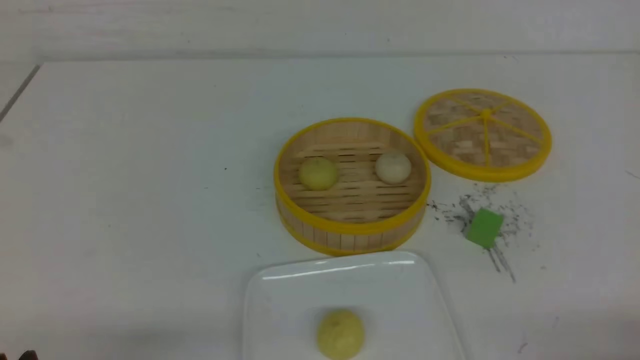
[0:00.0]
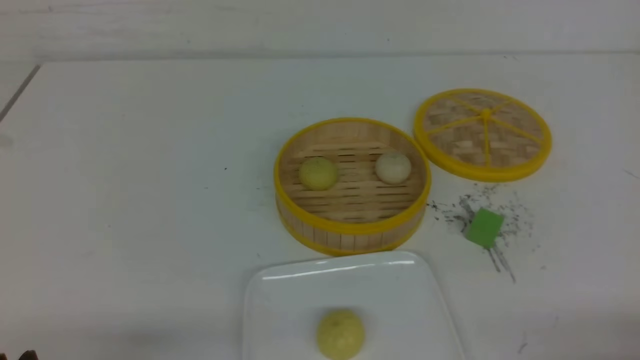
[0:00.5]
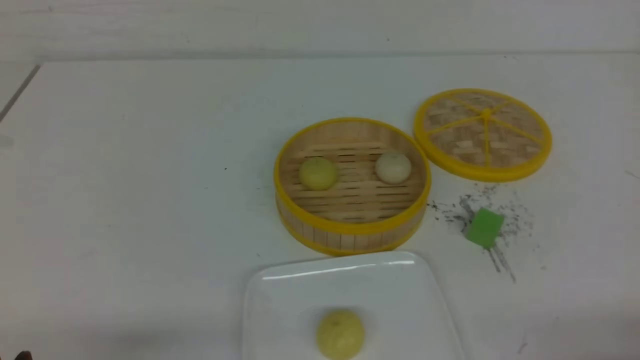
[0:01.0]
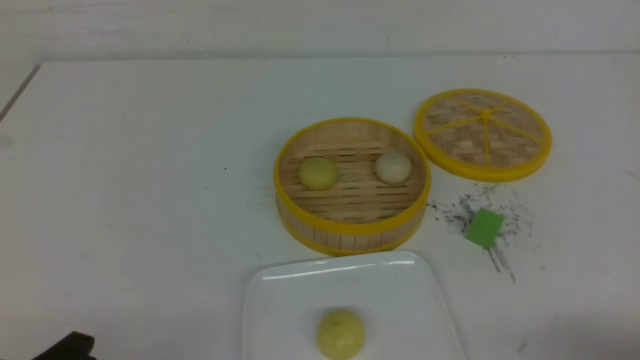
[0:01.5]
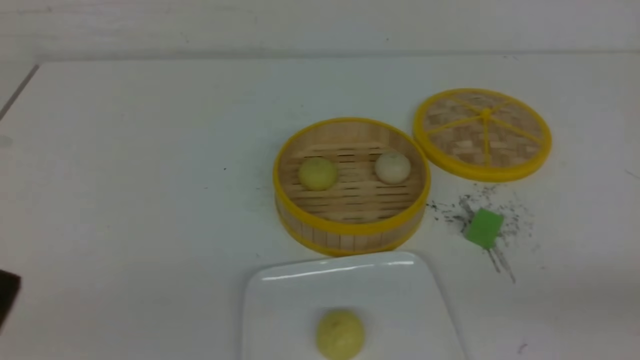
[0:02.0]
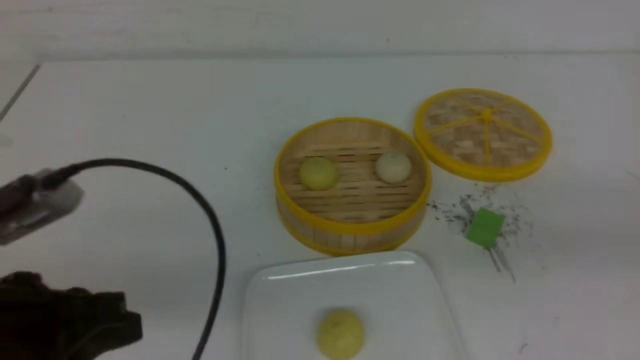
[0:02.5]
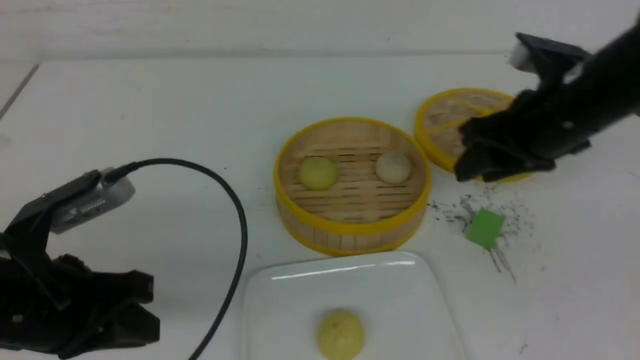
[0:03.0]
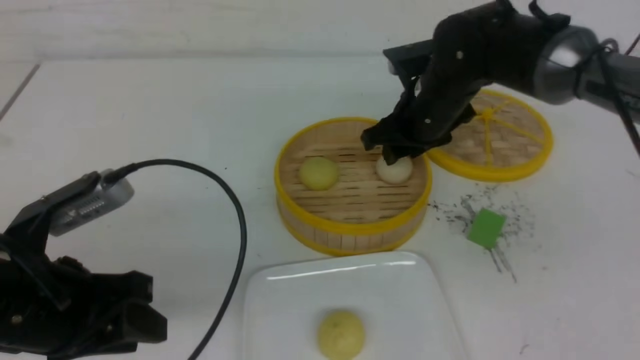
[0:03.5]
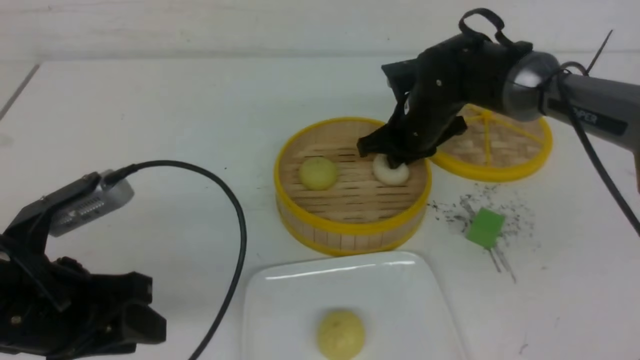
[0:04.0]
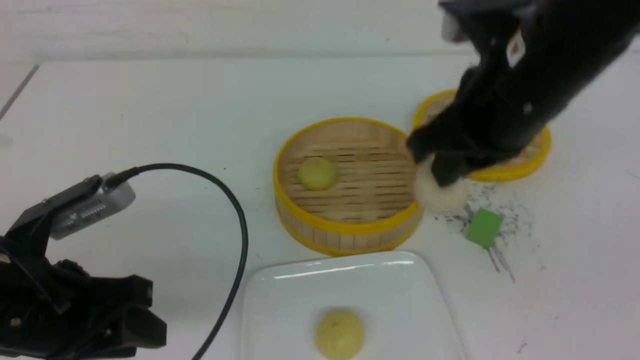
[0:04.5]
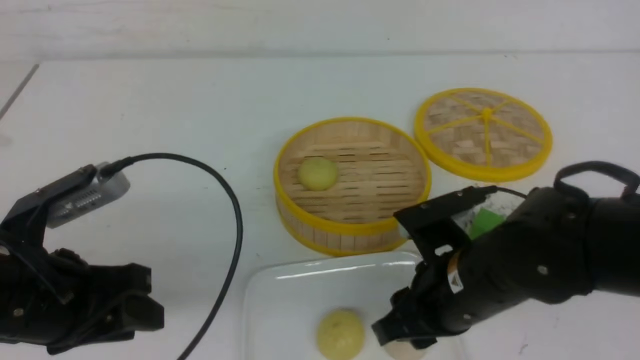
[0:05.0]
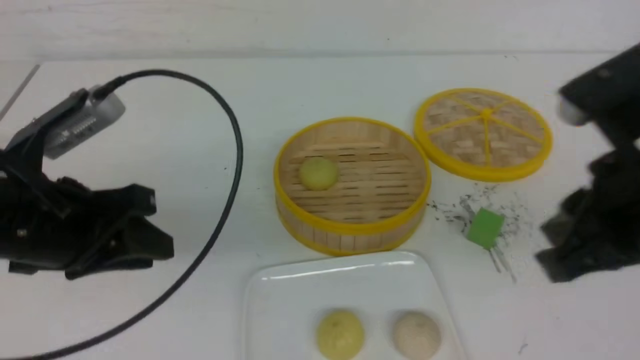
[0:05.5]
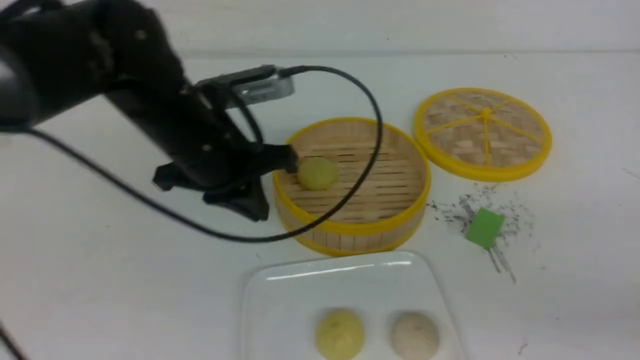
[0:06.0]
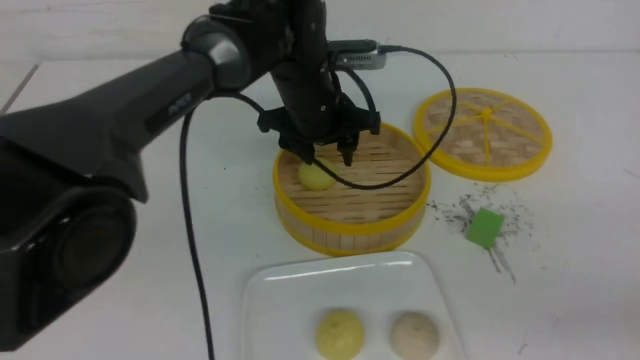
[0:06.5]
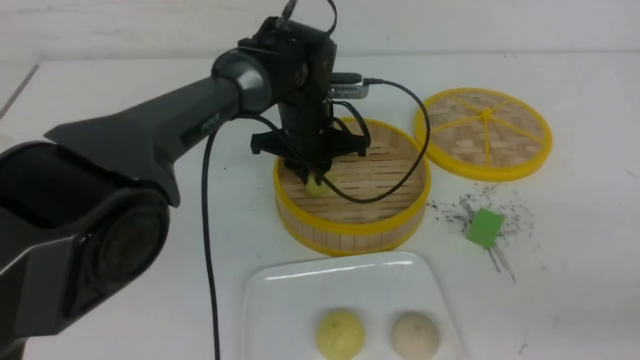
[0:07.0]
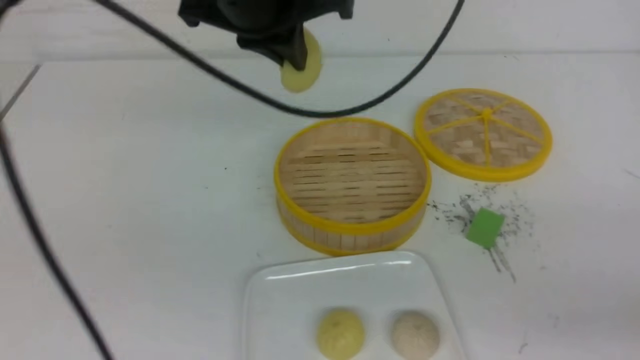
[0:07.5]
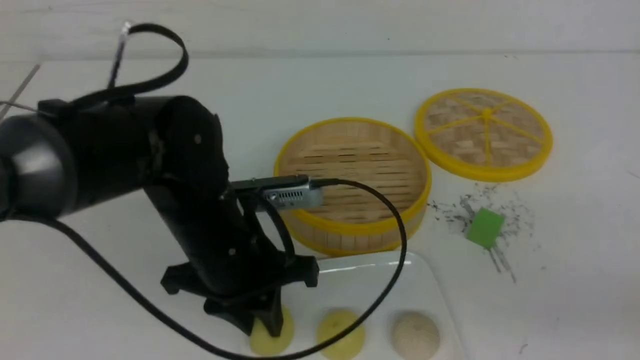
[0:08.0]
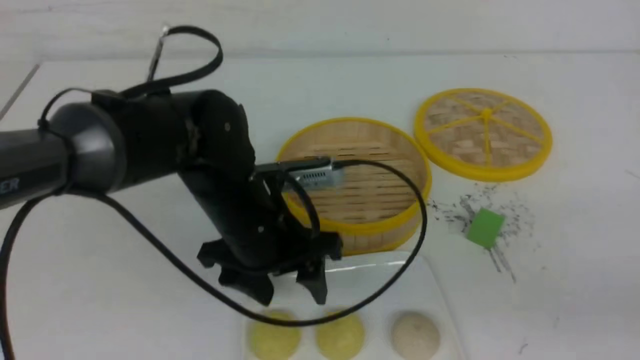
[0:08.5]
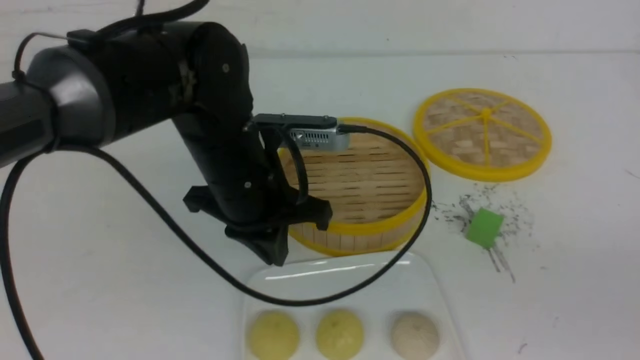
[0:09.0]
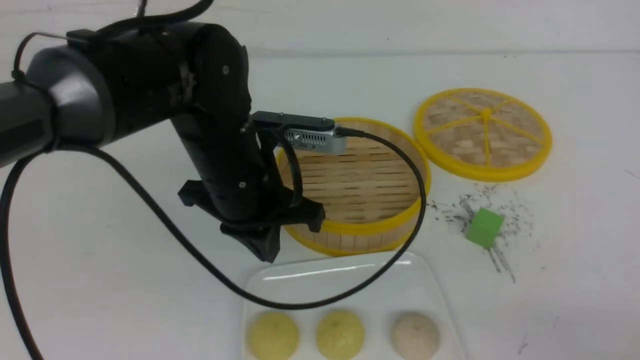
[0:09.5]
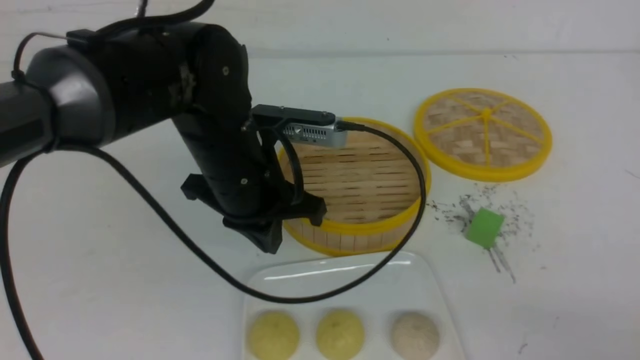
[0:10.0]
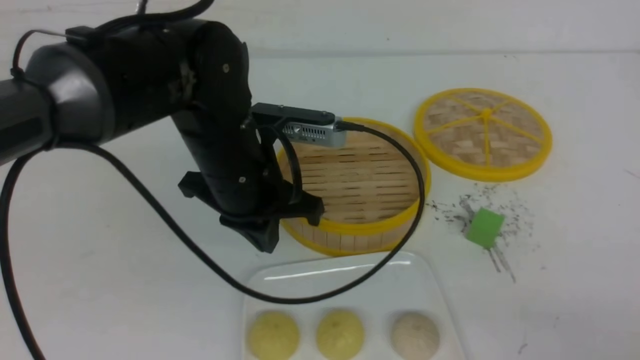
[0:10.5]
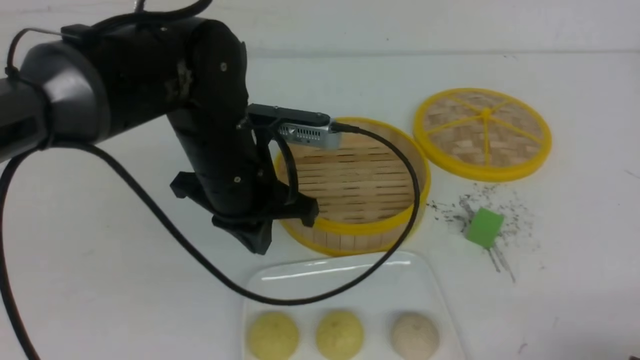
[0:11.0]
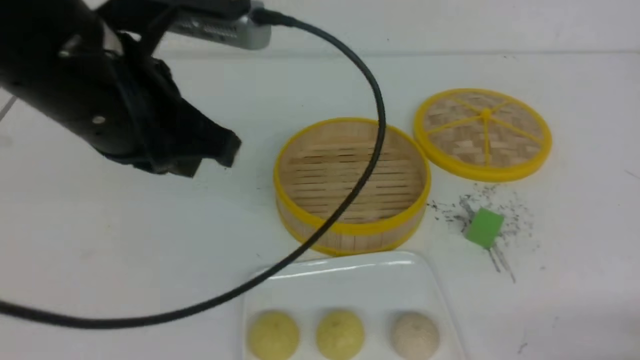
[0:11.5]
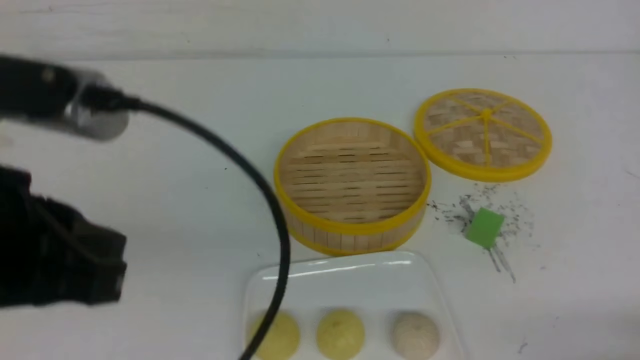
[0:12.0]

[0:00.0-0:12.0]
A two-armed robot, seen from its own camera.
Step, 0:00.0 to 0:03.5: use the right arm to grab the steamed stuffed bun that is closest to it.
Step, 0:04.0 to 0:05.0: use the right arm to put the steamed stuffed bun into the plate.
Step, 0:05.5 to 0:07.0: use the left arm to grab the steamed stuffed bun that is closest to it.
Step, 0:07.5 to 0:08.0: use the left arm to put the steamed stuffed bun into the plate.
0:02.0 to 0:04.0: The right gripper travels forward and to the left by some 40 cm, and opens, then closes once more. Meanwhile the left gripper moves forward, approximately 10 cm, and opens up.
0:04.0 to 0:06.0: The left gripper moves forward and to the right, some 20 cm, and closes its fingers, while the right gripper moves backward and to the right, about 35 cm, and closes.
0:06.0 to 0:08.0: The left gripper travels backward and downward by roughly 10 cm, and opens and closes again.
0:08.0 to 0:10.0: The left gripper shifts by approximately 5 cm, and closes up, while the right gripper travels backward by about 5 cm.
0:10.0 to 0:12.0: The right gripper travels downward by about 10 cm. Meanwhile the left gripper travels backward, to the left and upward by roughly 20 cm.

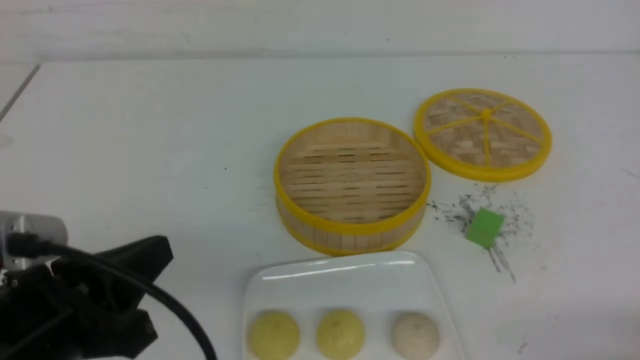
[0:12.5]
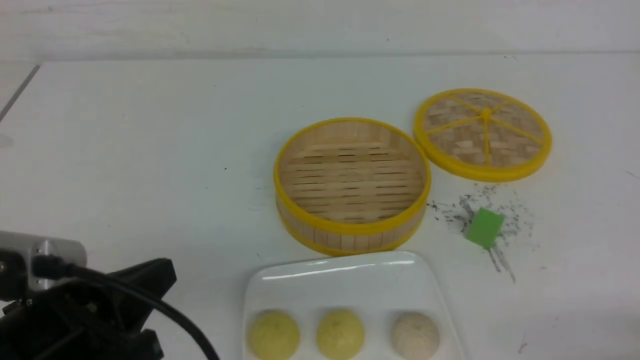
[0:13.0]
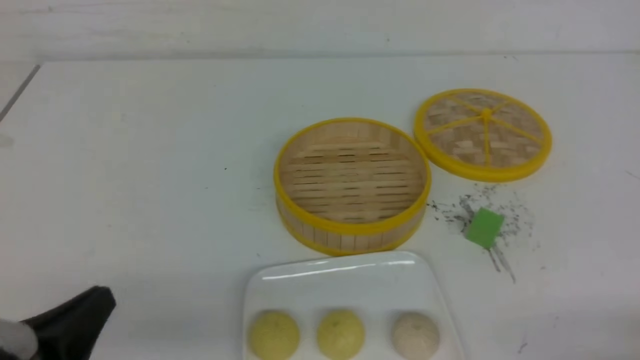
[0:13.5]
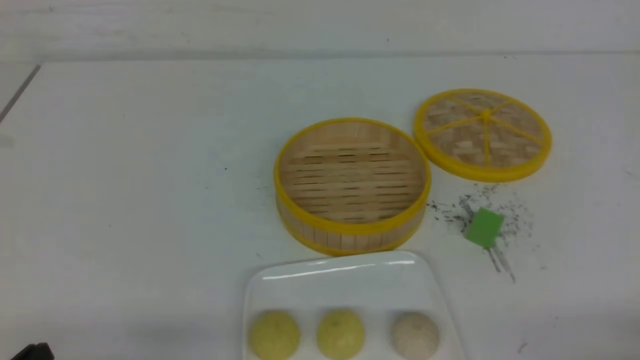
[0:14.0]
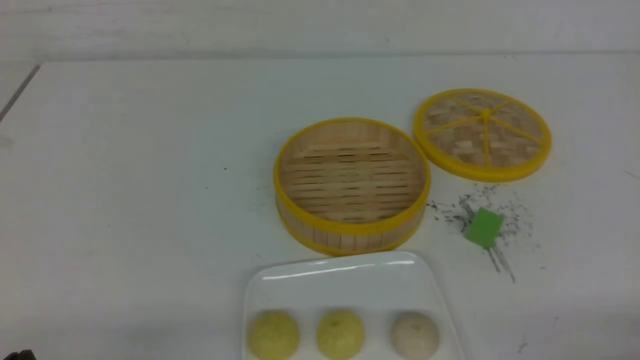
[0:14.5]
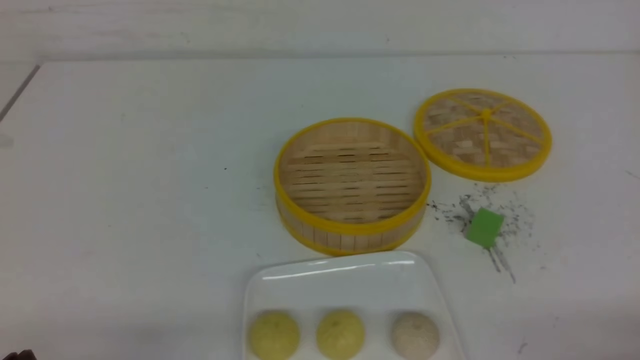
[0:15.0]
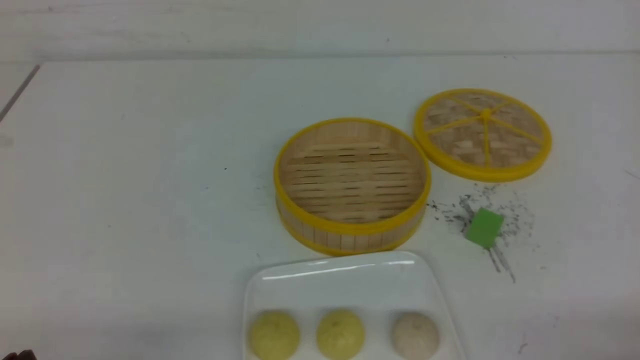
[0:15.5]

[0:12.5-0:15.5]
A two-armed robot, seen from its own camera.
0:12.5 to 0:14.0: The left gripper is displaced downward and to the left by roughly 10 cm.
